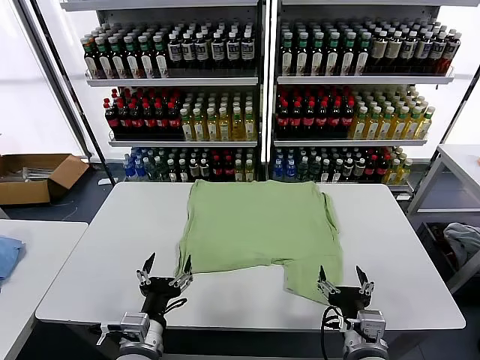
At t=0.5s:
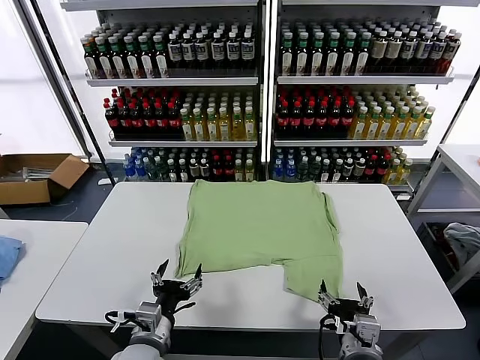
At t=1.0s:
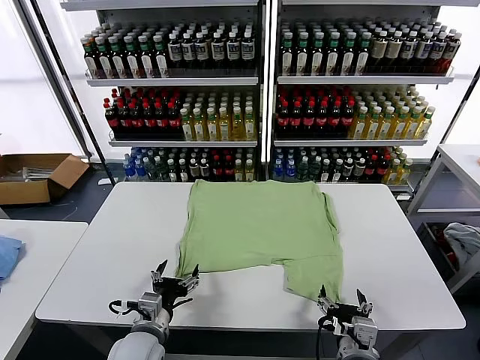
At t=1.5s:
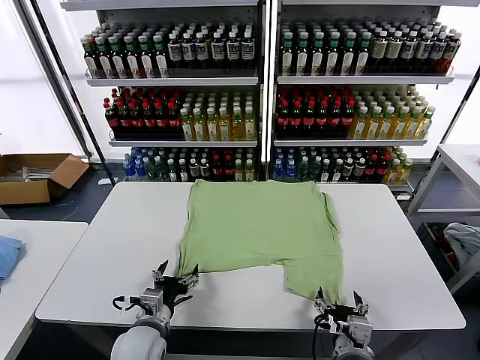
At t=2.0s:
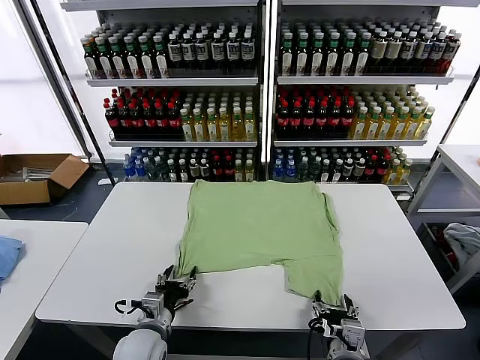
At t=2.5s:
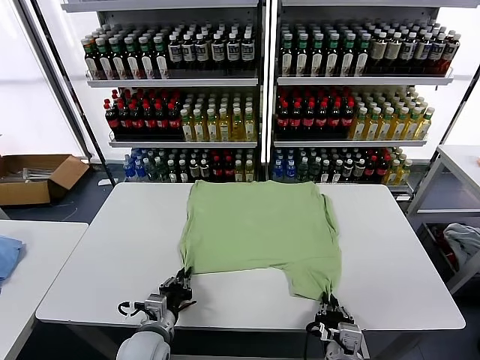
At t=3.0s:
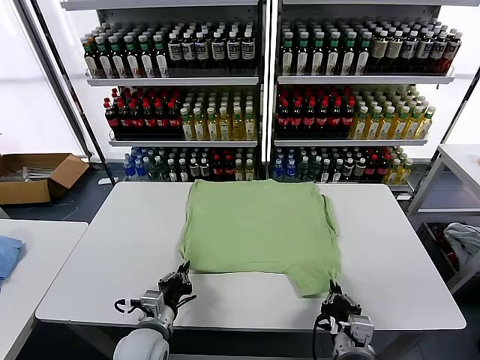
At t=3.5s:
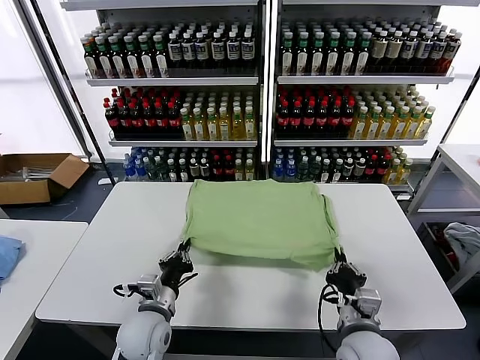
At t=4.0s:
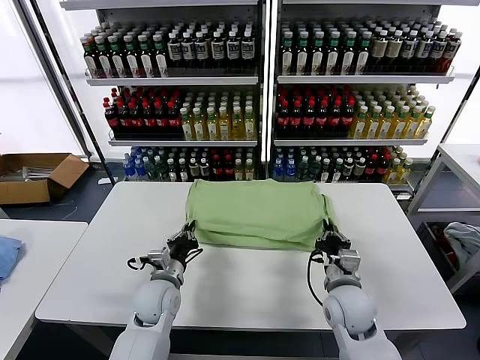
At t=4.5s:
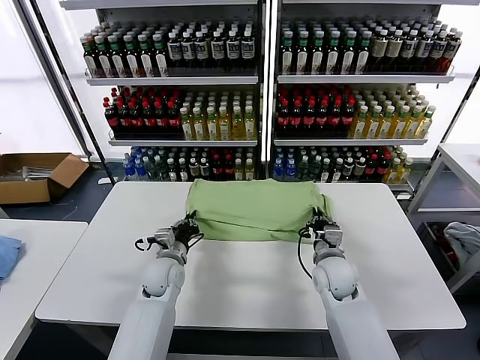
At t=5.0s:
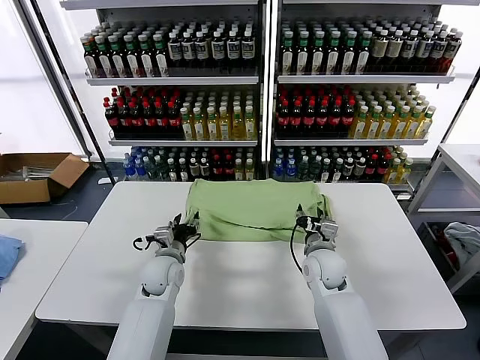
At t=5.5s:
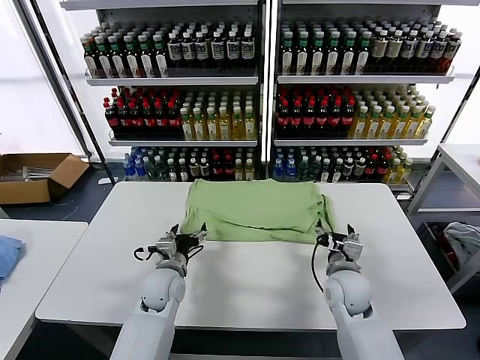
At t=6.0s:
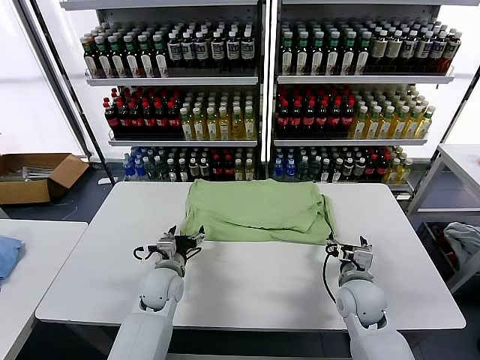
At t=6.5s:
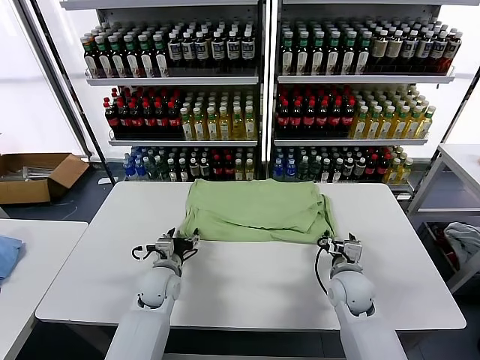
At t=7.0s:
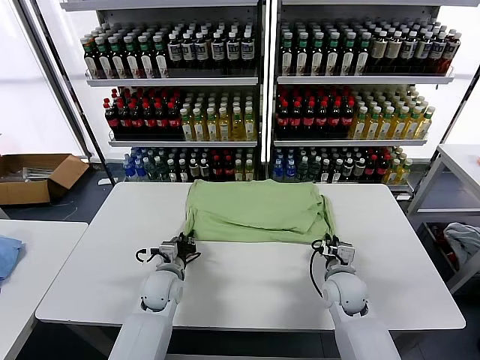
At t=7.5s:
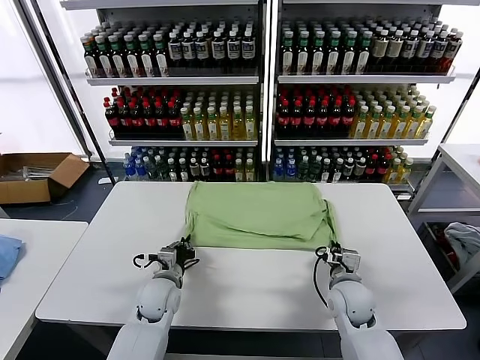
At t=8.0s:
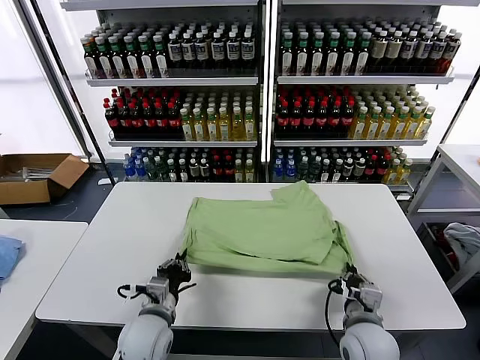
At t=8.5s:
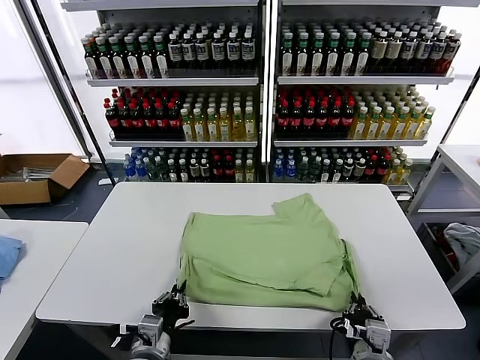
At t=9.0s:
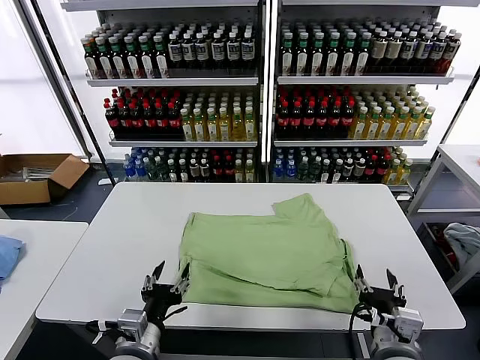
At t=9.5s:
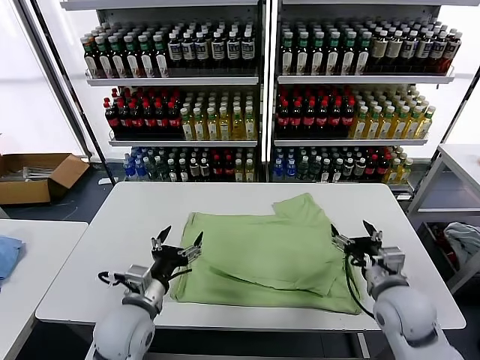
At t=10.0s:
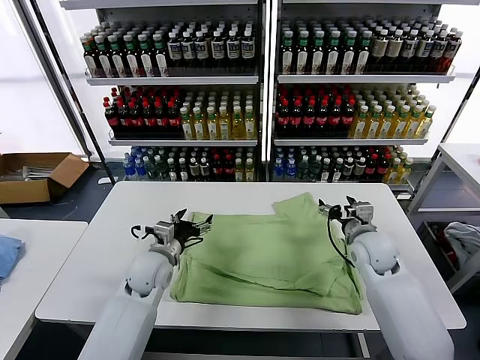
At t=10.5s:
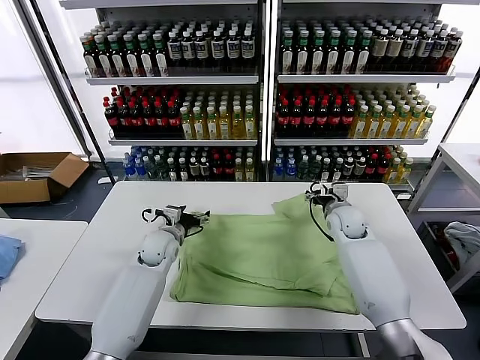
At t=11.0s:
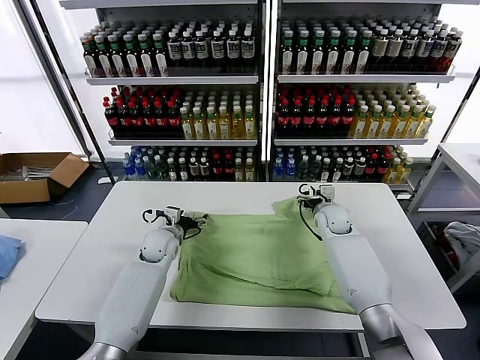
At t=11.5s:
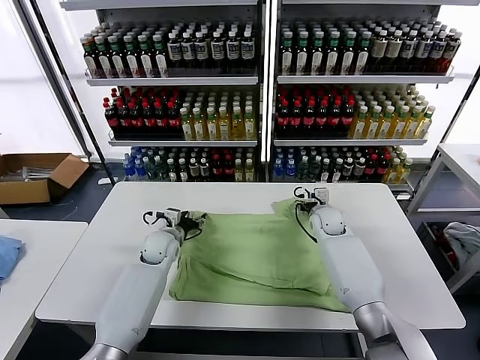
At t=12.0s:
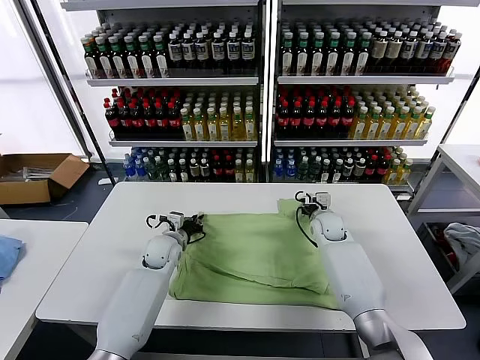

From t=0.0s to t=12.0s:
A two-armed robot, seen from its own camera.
Task of the whole recording: fold and organize the clothes.
Step, from t=0.0s to t=2.5s: use both grippers simultaneously to clamp the lower edge of the clothing fabric.
Step, from t=3.0s to t=4.5s: use both grippers to drag the lower edge of the fabric forward and fold it over the upper edge.
Step, from t=5.0s to t=8.5s: Drag the clothes downward with both gripper.
From t=2.0s to t=4.0s: The right gripper is displaced forward by about 15 cm, and closes up. The left gripper is displaced forward by roughly 10 cm, and closes up.
From t=4.0s to t=6.0s: The left gripper opens. Meanwhile the right gripper opens its fingers.
From t=6.0s to t=8.0s: The grippers both shift backward by about 15 cm. The right gripper closes its fingers; the left gripper closes up.
From t=8.0s to t=10.0s: The left gripper goes about 15 cm forward, and opens up, while the right gripper travels forward by roughly 25 cm, and opens its fingers.
From t=10.0s to t=12.0s: The left gripper is displaced forward and downward by some 10 cm, and closes up; the right gripper is displaced forward, downward and to the left by about 15 cm, and closes.

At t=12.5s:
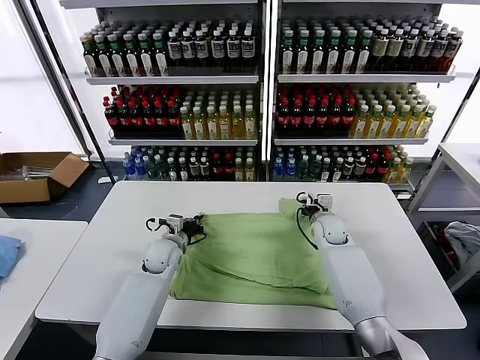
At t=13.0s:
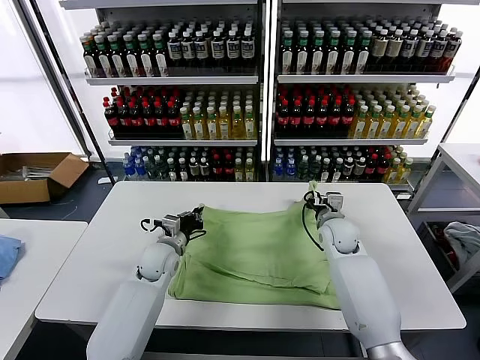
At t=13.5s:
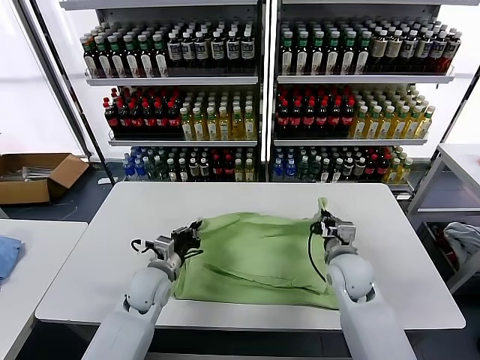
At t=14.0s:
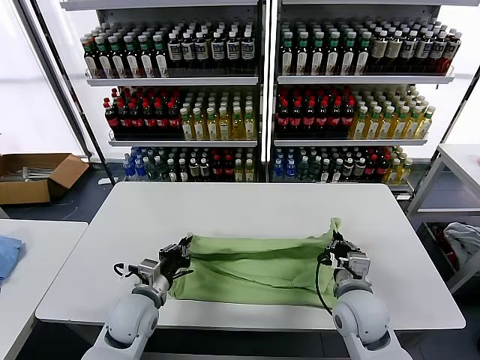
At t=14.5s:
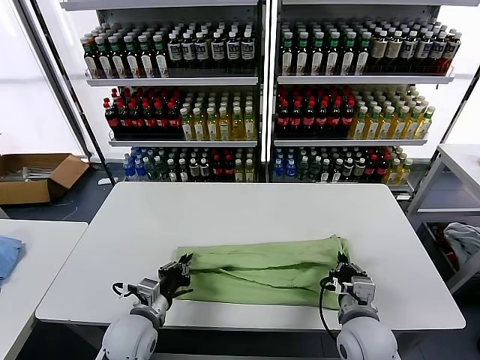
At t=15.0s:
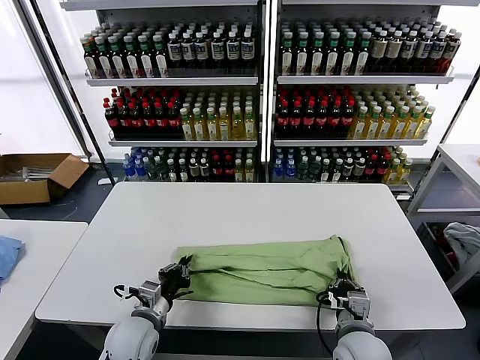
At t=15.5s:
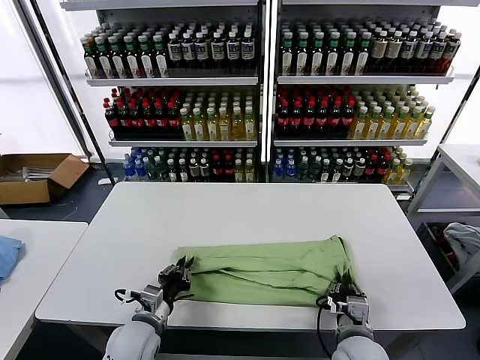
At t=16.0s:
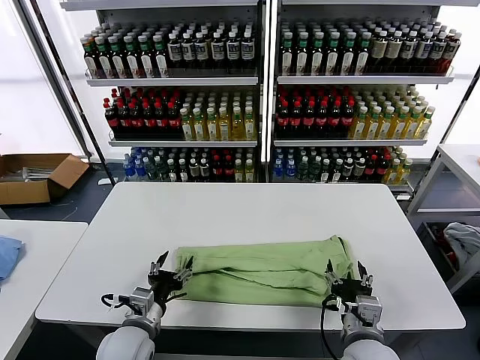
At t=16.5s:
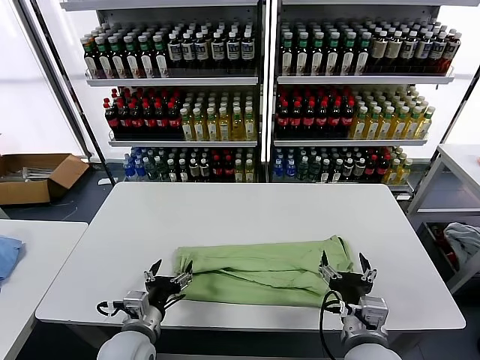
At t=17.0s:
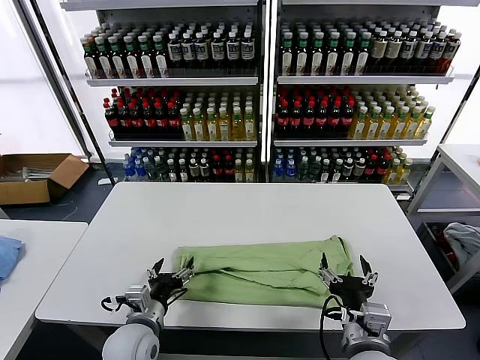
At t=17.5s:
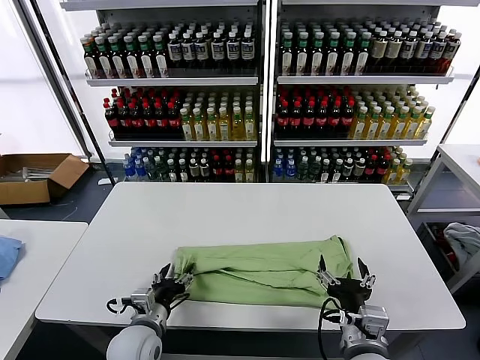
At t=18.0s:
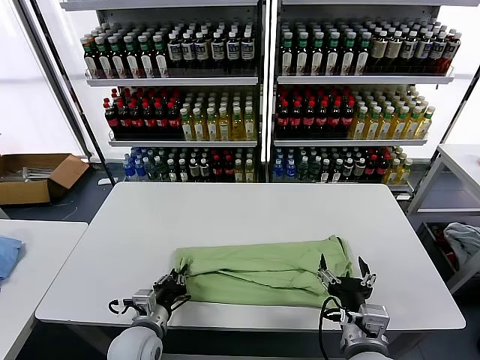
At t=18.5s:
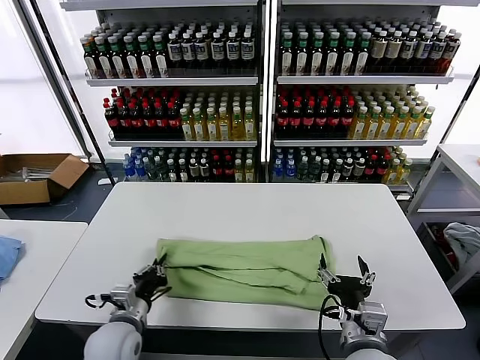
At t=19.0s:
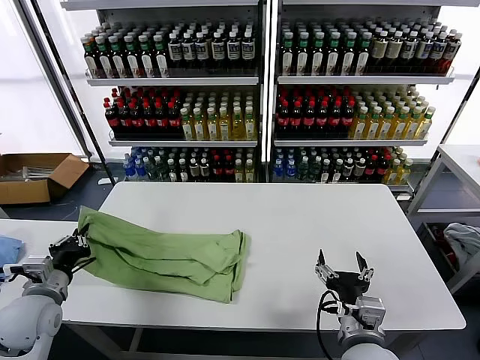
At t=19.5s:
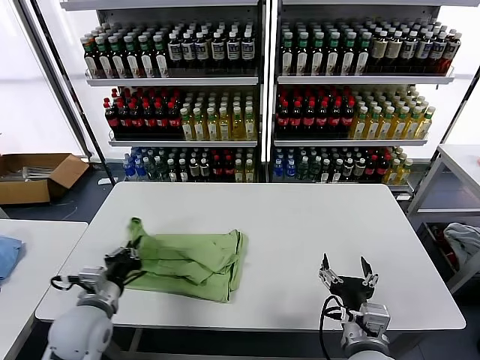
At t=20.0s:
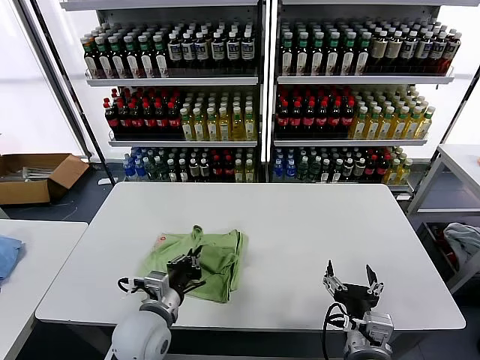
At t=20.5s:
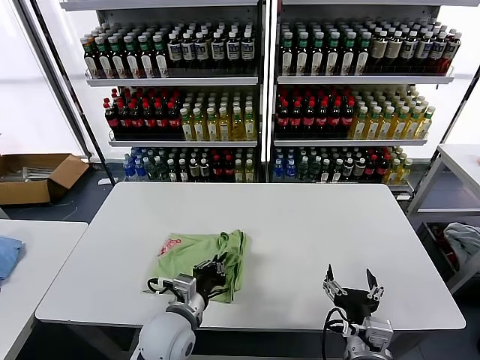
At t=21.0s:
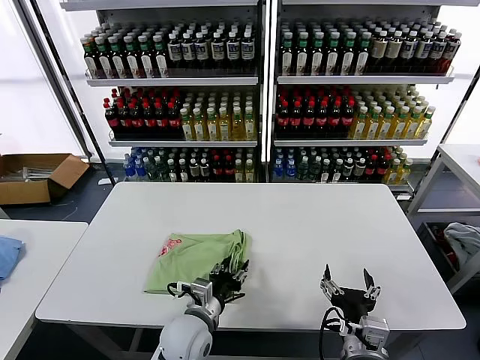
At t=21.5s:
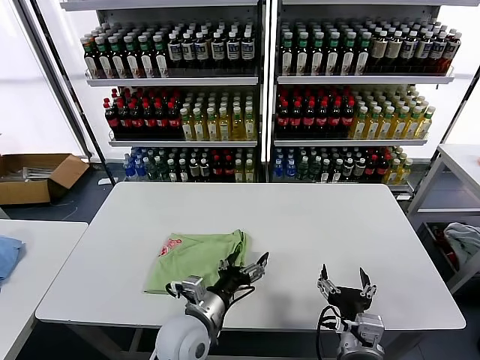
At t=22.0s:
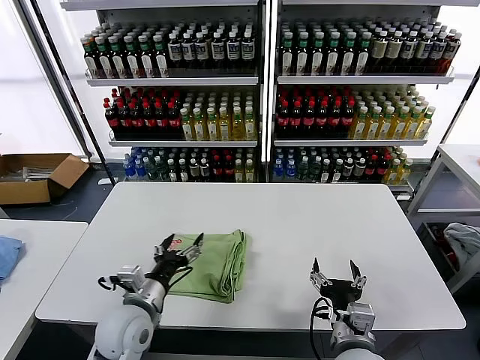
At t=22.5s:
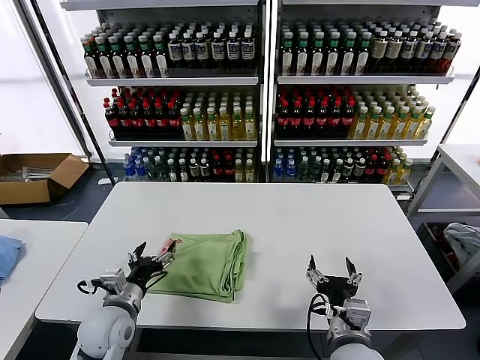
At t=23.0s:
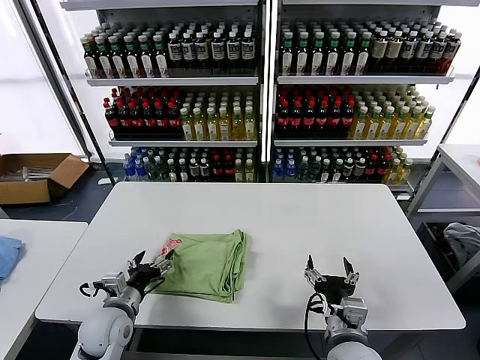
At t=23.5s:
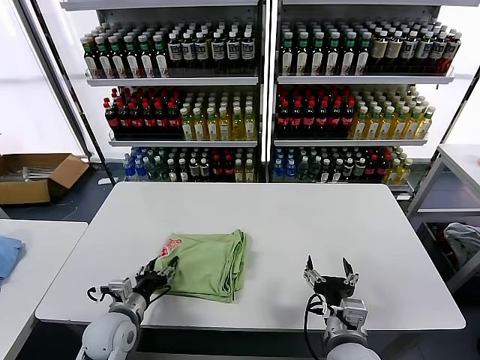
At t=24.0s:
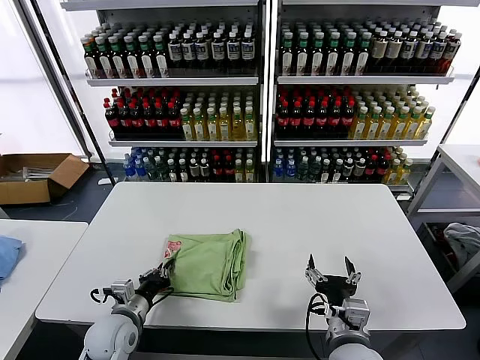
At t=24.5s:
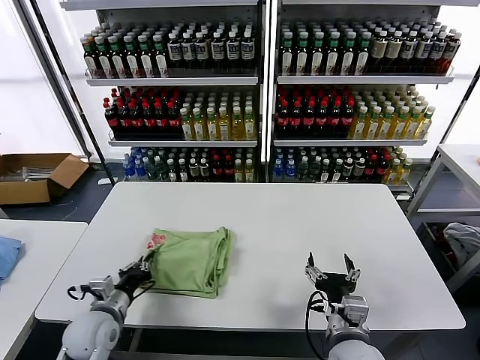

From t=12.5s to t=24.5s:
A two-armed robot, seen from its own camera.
Task of the whole recording: fold and organize the clothes.
Step, from t=12.5s to t=15.5s: use both grippers to drag the upper edge of the fabric backward and fold it over the lower edge.
Step, from t=16.0s to t=18.0s: use the left gripper to clamp the left edge of the fabric.
Step, from t=18.5s to t=21.0s: use the left gripper to drag the left edge of the fabric to the left and folds it over the right edge.
From t=12.5s to t=14.5s: Both grippers travel together backward, approximately 25 cm.
From t=14.5s to t=16.5s: The left gripper opens up. The right gripper travels backward by about 5 cm, and opens up.
From t=16.5s to t=18.5s: The left gripper closes its fingers.
From t=18.5s to t=20.5s: The left gripper travels to the right by approximately 10 cm.
From t=20.5s to t=22.5s: The left gripper heads to the left, covering some 15 cm, and opens its fingers.
From t=22.5s to t=24.5s: The left gripper closes.

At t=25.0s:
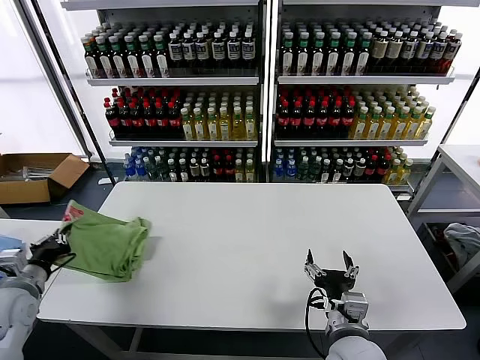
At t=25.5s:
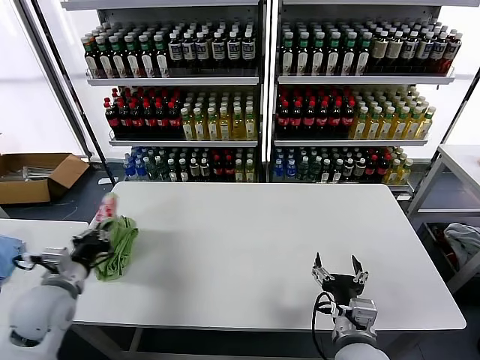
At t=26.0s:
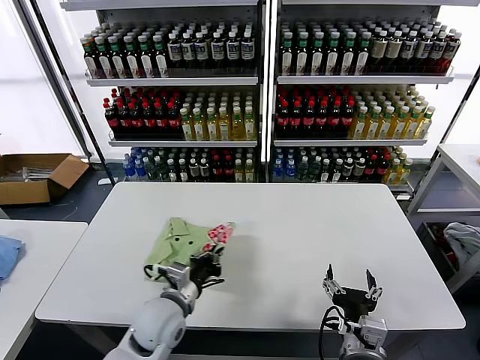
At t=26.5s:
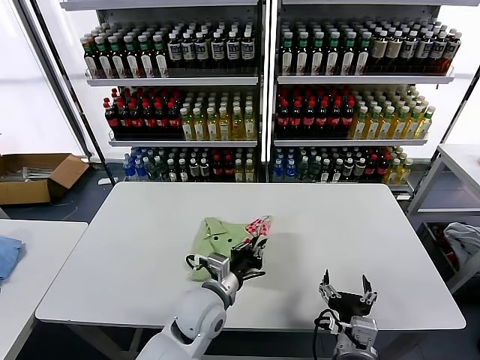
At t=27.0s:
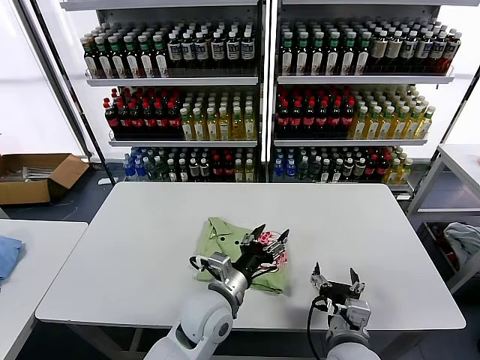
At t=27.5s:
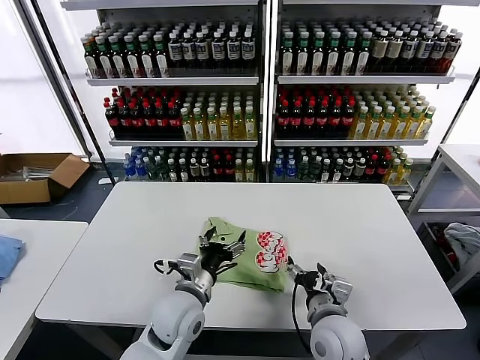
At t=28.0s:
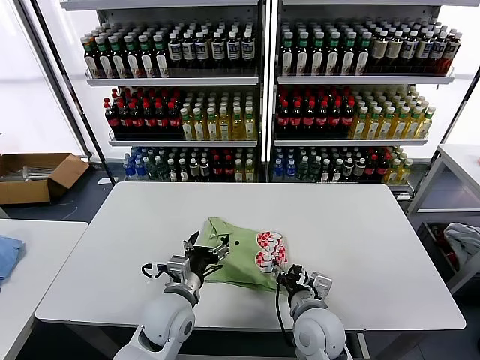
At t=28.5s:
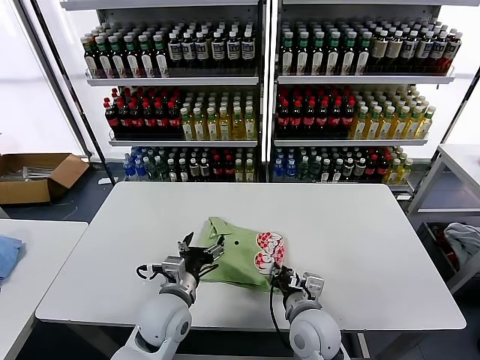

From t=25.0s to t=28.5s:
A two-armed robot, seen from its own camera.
Task of the whole recording: fold and organize the clothes.
From t=25.0s to t=27.0s: The left gripper is displaced to the right by approximately 40 cm, and opens its fingers.
From t=27.0s to t=28.5s: The right gripper shifts roughly 10 cm forward and to the left, and closes; the left gripper is displaced to the left by some 10 cm.
